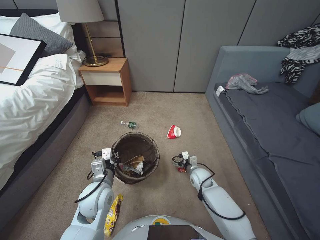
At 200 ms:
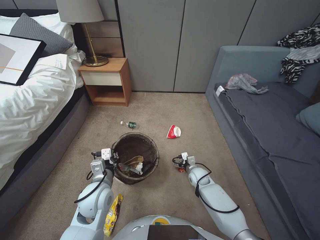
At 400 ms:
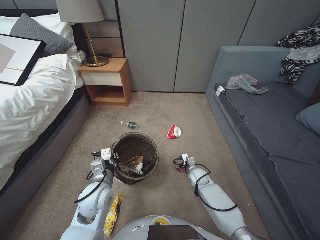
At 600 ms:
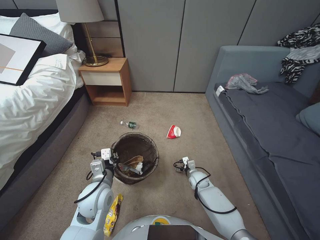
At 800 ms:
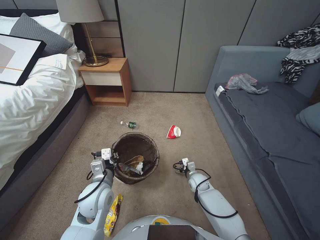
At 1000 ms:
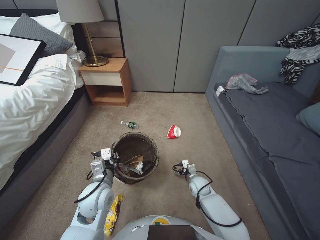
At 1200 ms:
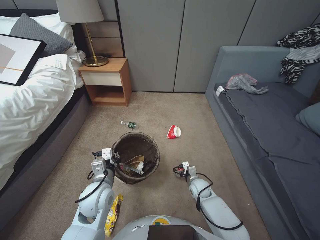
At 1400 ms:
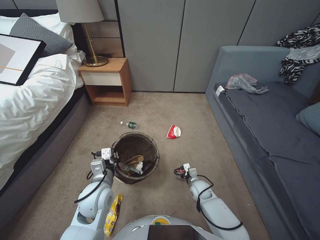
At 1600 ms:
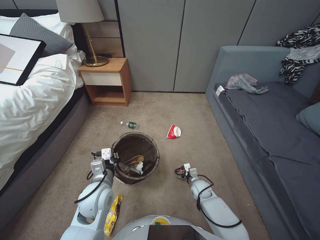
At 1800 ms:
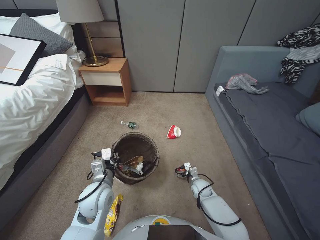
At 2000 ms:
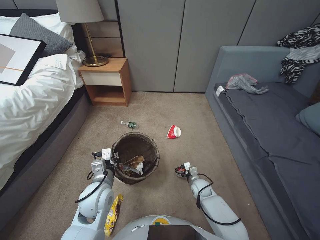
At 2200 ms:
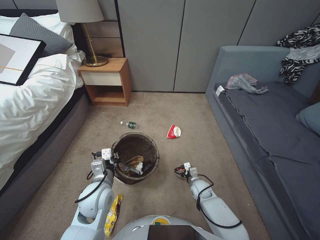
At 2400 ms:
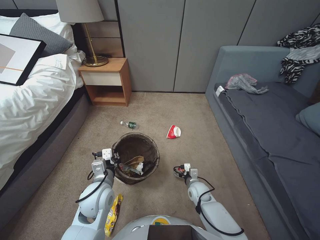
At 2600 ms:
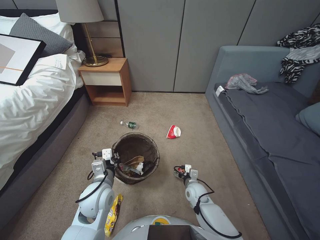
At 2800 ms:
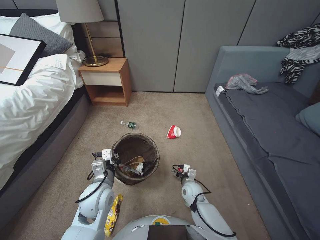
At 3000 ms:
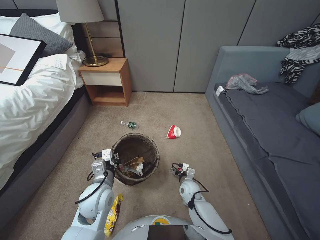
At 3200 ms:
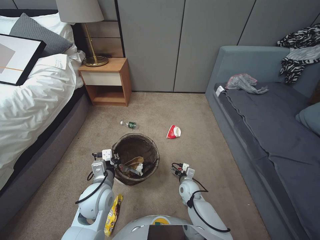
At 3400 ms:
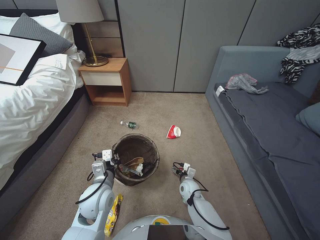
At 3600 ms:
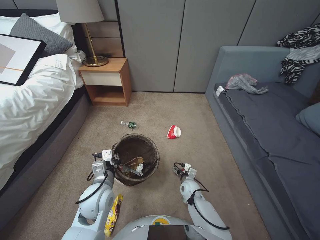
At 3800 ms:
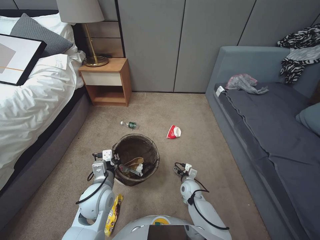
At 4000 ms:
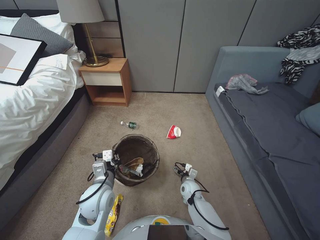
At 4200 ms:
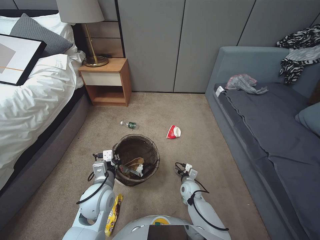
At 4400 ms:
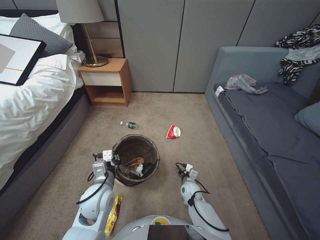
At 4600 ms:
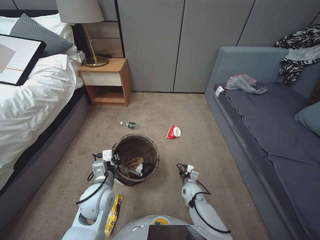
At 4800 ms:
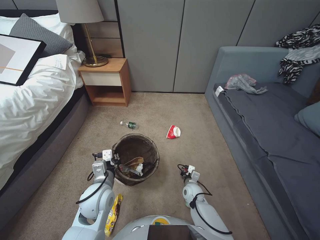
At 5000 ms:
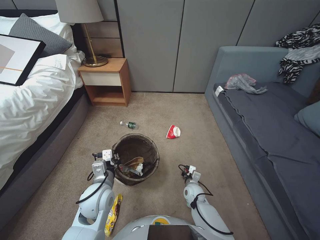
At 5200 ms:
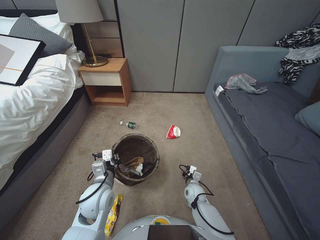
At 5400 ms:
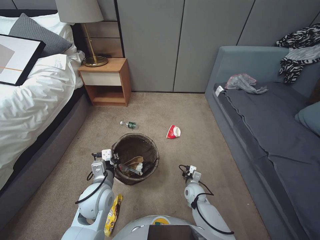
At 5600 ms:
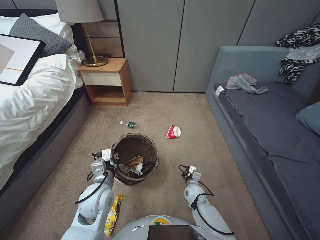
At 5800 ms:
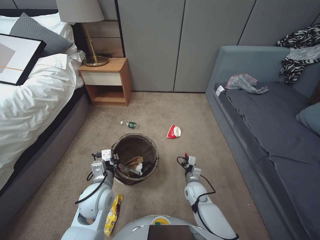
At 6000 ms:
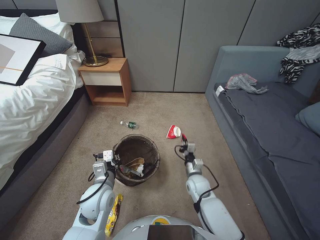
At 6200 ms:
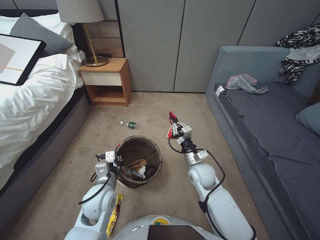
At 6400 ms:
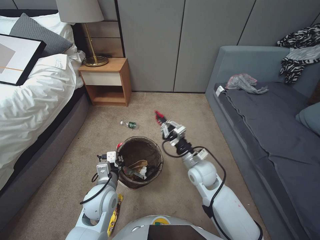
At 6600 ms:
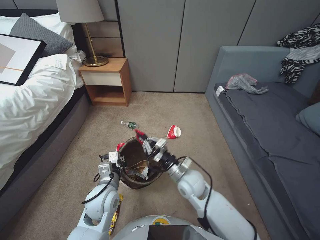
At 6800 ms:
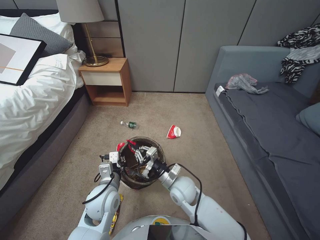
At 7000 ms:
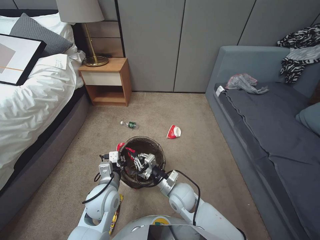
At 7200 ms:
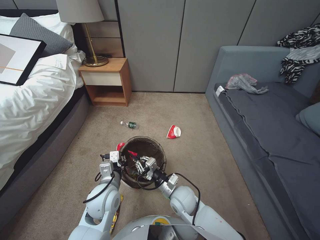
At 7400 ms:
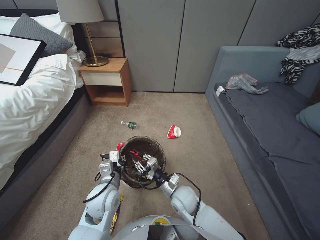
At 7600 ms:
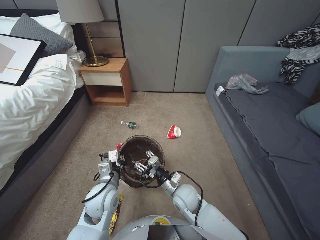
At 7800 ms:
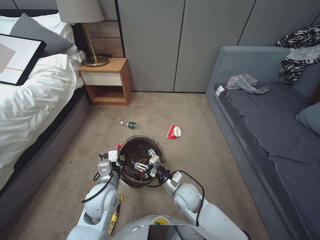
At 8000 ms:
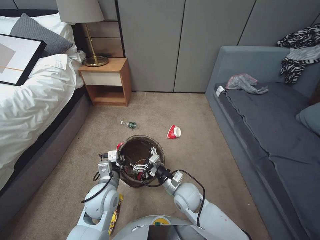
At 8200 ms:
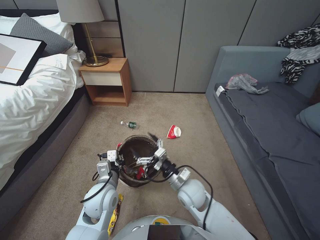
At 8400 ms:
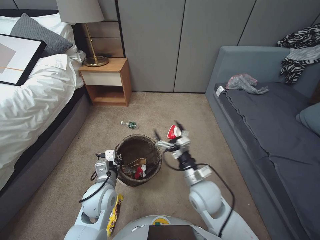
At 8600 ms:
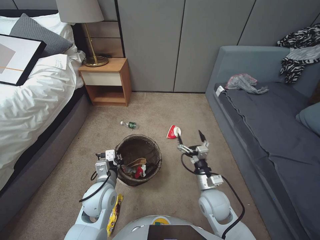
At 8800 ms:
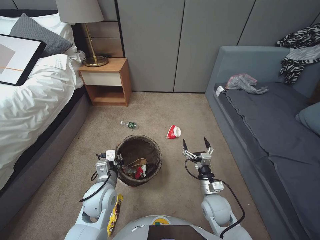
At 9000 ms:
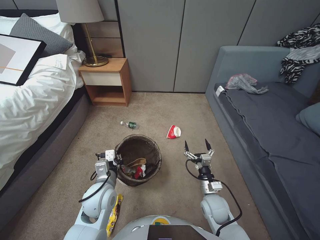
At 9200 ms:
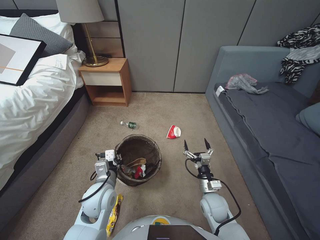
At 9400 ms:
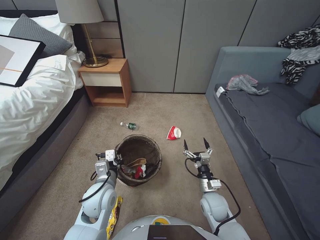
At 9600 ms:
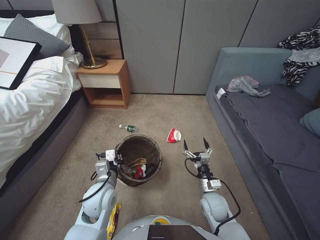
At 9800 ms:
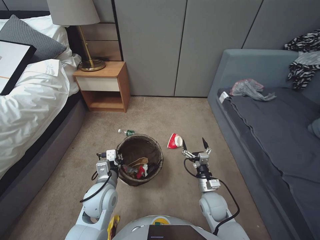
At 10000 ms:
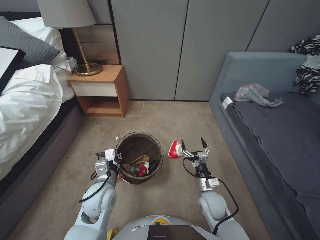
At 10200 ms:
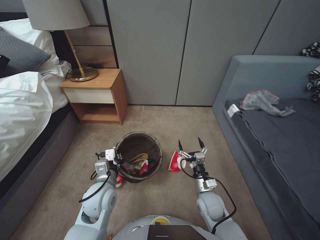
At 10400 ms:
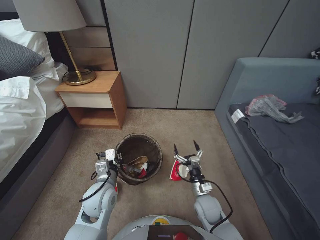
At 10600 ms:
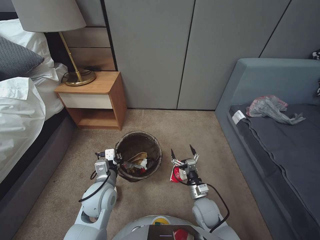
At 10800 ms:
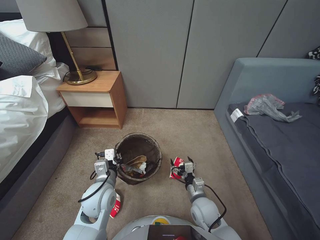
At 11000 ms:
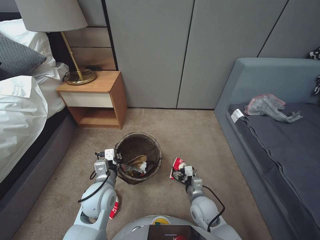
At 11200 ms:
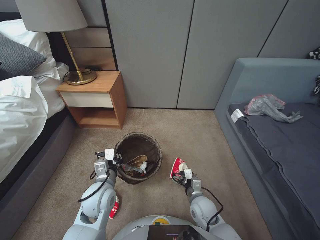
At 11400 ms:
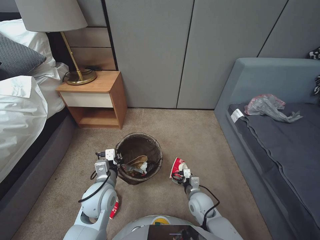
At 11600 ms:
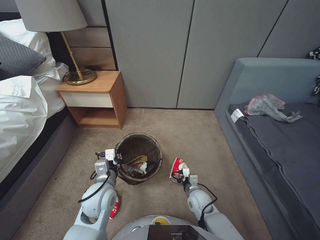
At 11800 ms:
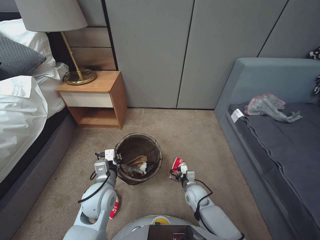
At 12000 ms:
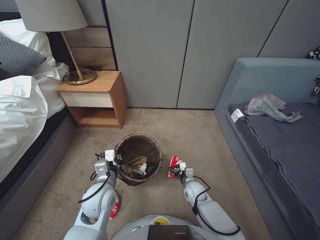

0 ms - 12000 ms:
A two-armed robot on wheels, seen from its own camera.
Task of the whole recording: Pick up the trash bin, then pick up the garbage from the floor and place it into the trash bin.
0 ms - 1600 ms: The right gripper shifts roughly 10 cm downward.
3000 ms - 4400 ms: The grippers stay close to where they were, moving slightly.
4400 ms - 6000 ms: The right gripper moves upward, approximately 5 cm, and closes its fingers.
6000 ms - 7600 ms: The right gripper heads to the left, upward and backward, covering about 15 cm, and opens its fingers.
7600 ms - 9000 ms: The right gripper travels to the right by some 10 cm, and opens.
10400 ms - 12000 ms: The right gripper is displaced downward and forward by approximately 10 cm.

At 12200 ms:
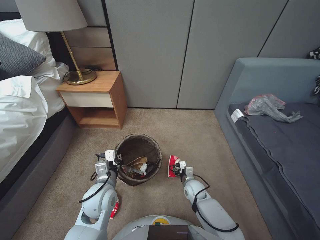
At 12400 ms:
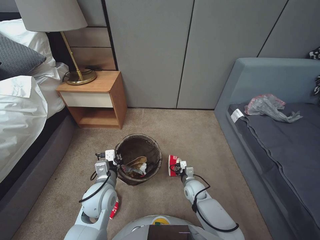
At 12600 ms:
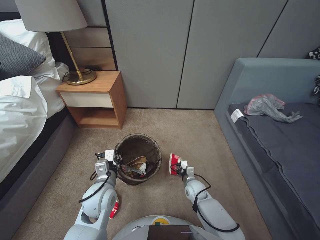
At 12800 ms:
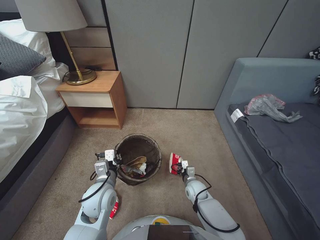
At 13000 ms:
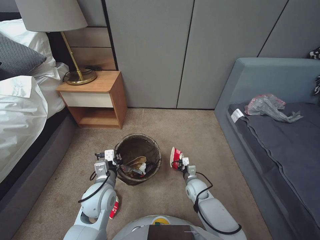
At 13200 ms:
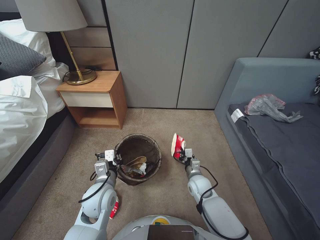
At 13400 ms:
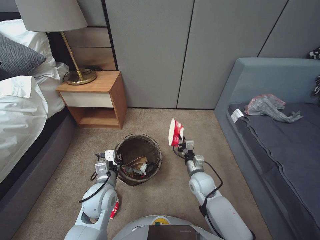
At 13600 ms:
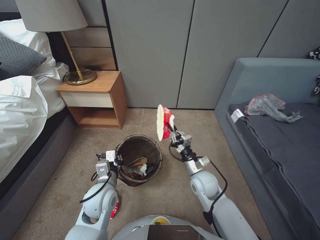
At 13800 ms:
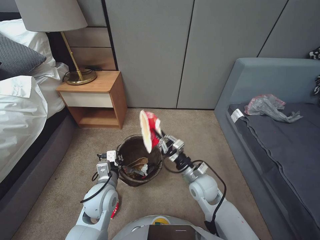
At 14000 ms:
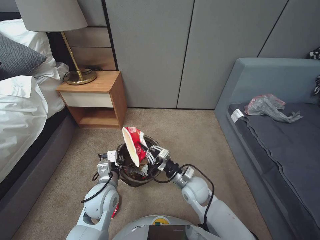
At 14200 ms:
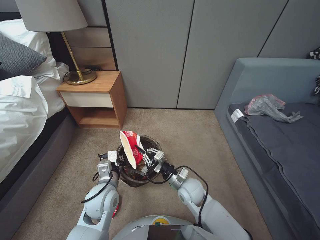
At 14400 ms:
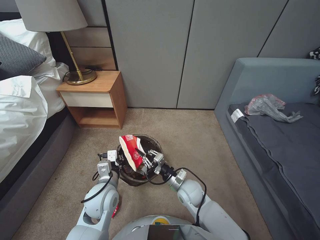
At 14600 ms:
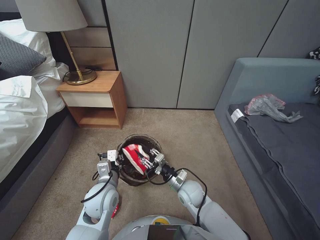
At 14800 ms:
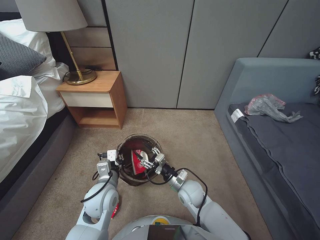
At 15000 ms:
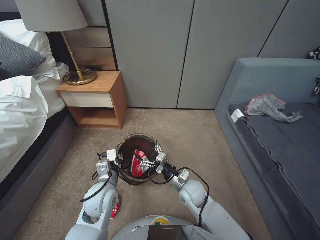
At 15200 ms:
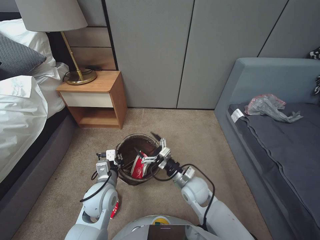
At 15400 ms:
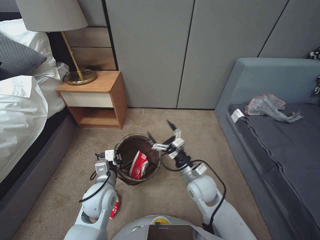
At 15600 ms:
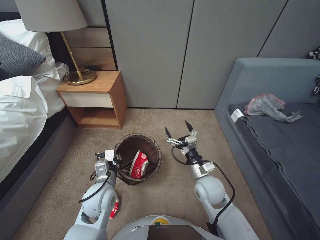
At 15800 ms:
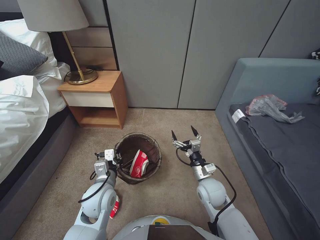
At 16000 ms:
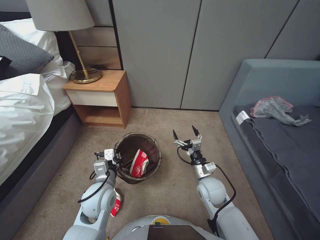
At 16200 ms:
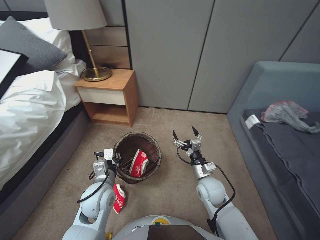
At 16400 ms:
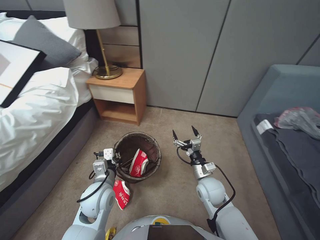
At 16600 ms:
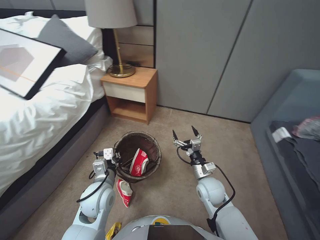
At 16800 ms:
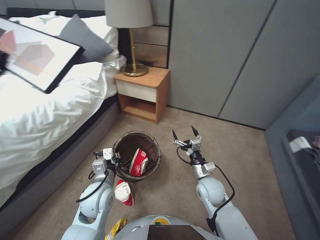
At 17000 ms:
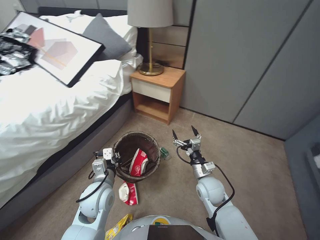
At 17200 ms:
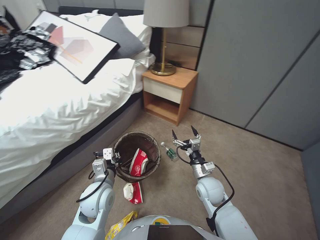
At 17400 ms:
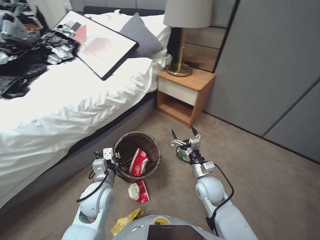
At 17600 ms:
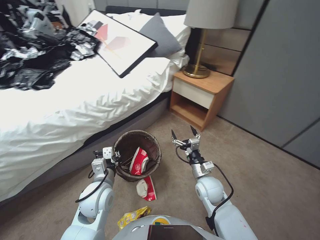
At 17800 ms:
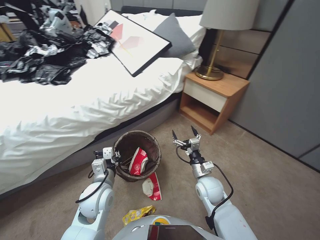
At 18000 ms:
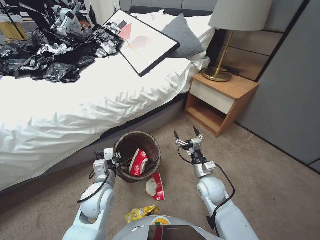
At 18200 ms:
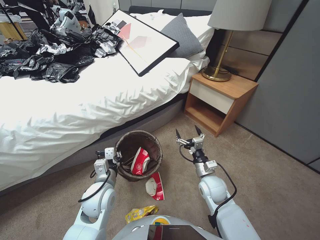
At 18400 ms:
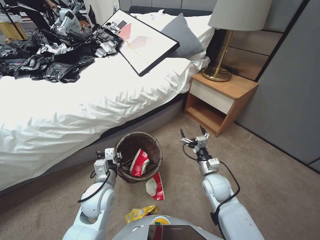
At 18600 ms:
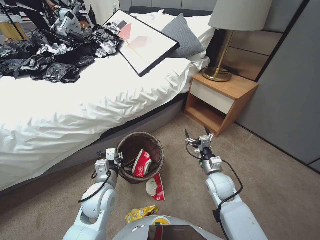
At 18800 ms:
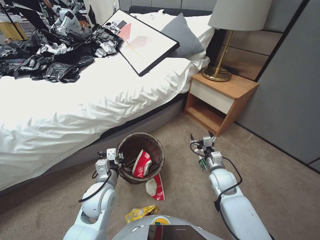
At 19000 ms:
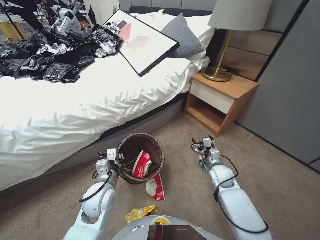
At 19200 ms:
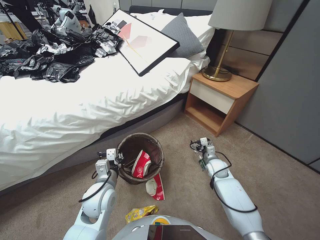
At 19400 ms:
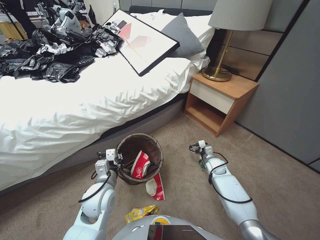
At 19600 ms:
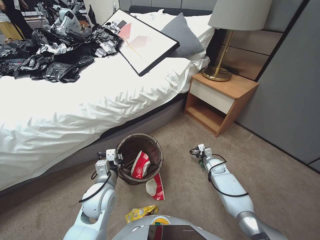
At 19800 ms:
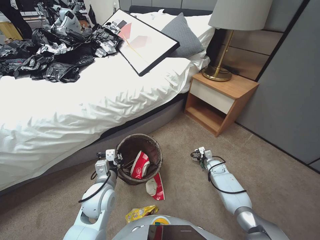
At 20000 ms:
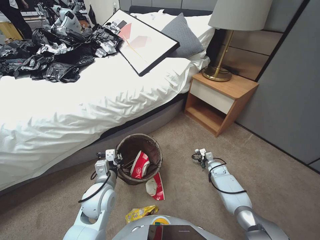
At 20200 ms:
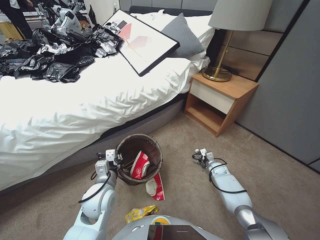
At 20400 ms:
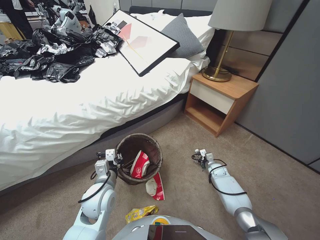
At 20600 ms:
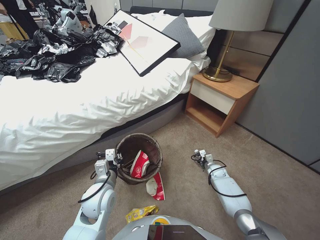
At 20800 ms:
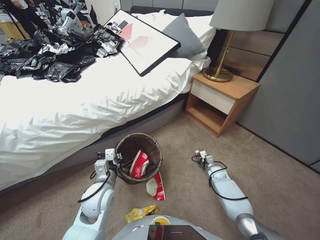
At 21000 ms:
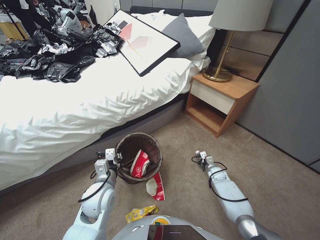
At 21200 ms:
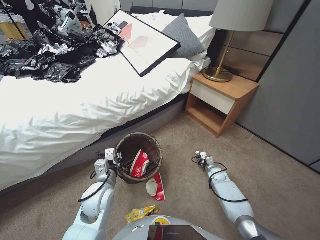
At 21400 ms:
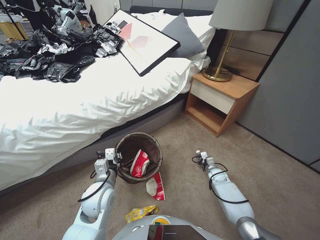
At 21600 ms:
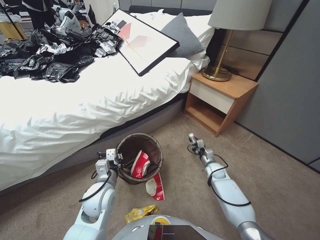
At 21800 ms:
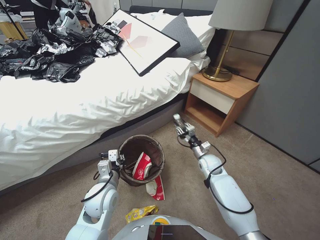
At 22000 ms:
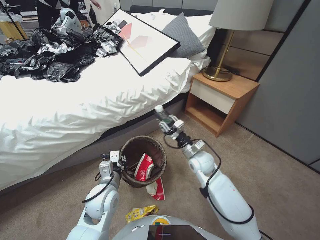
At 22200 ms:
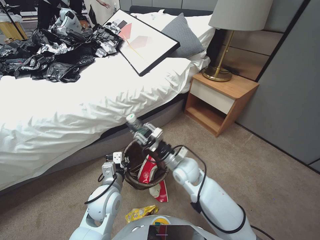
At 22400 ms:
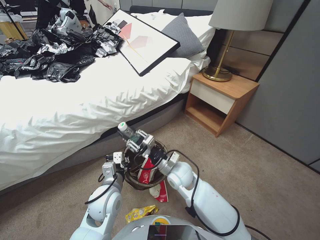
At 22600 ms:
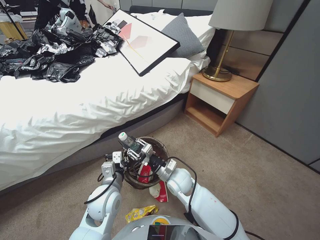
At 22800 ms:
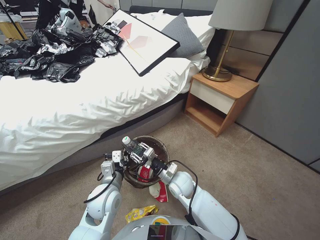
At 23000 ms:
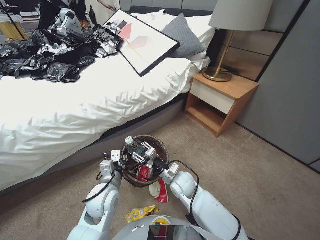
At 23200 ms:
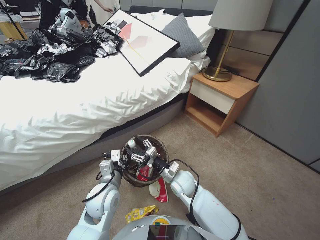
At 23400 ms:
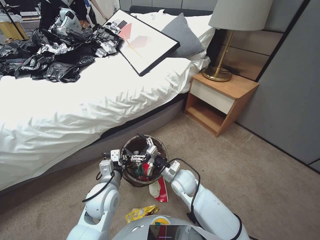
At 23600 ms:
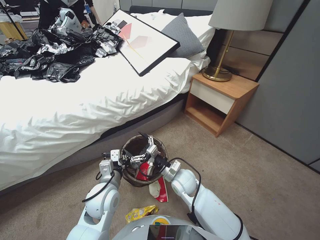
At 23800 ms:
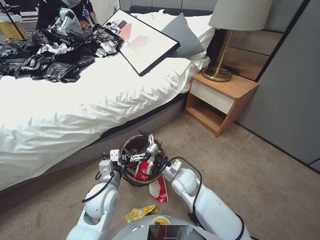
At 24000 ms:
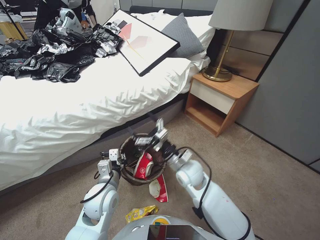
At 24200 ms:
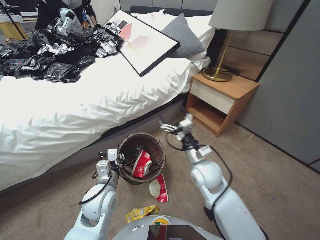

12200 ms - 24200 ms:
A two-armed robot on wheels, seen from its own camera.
Task of the whole recording: Pick up the trash bin, then pick up the garbage from the floor and place it into the trash bin.
12200 ms - 13800 ms: The right gripper is displaced upward by some 15 cm, and closes.
13800 ms - 15200 ms: The right gripper goes roughly 5 cm downward, and opens its fingers.
15200 ms - 16600 ms: The right gripper heads to the right, covering some 5 cm.
18200 ms - 19800 ms: The right gripper heads downward, forward and to the right, covering some 25 cm.
19800 ms - 21200 ms: The right gripper changes place by some 5 cm, and closes.
21200 ms - 22600 ms: The right gripper travels upward and to the left by about 35 cm.
22600 ms - 24200 ms: The right gripper travels downward and back again, about 10 cm each way, and opens.
